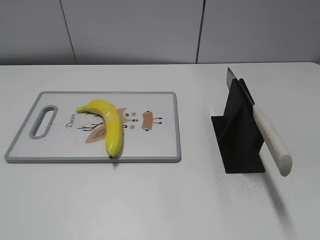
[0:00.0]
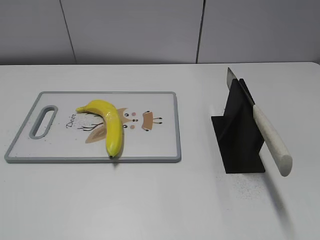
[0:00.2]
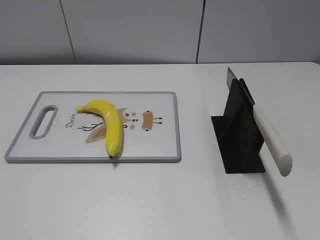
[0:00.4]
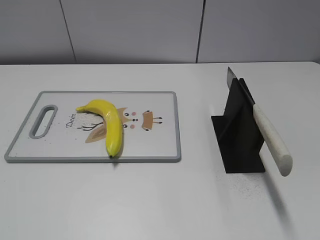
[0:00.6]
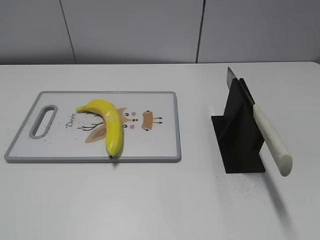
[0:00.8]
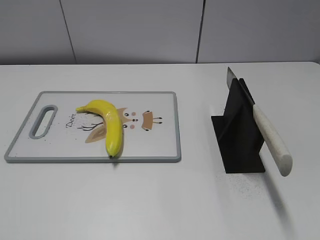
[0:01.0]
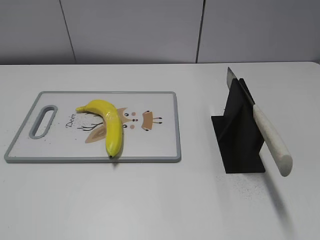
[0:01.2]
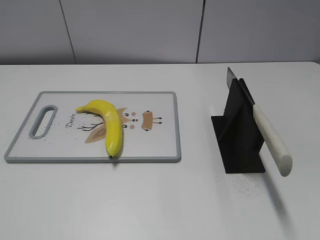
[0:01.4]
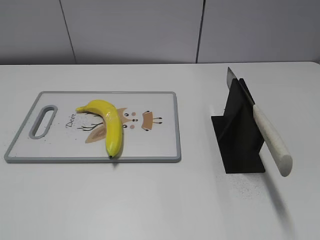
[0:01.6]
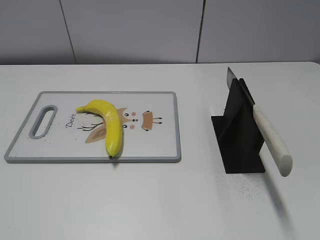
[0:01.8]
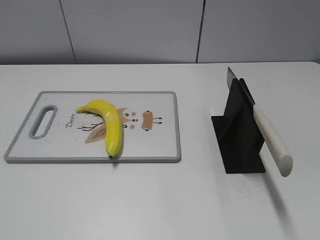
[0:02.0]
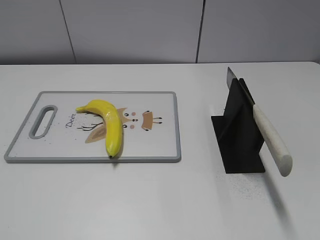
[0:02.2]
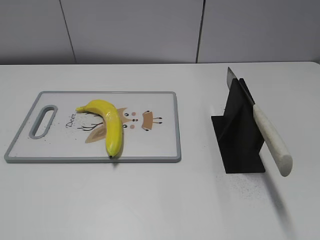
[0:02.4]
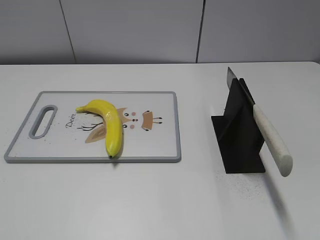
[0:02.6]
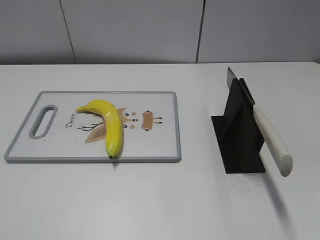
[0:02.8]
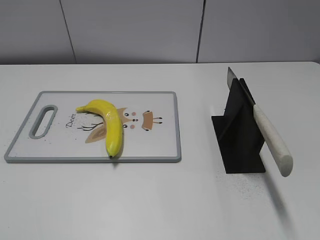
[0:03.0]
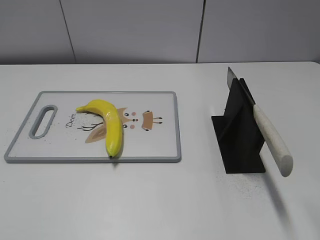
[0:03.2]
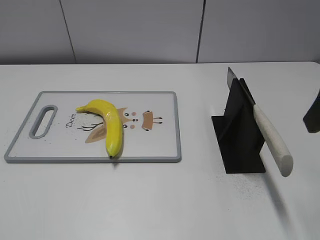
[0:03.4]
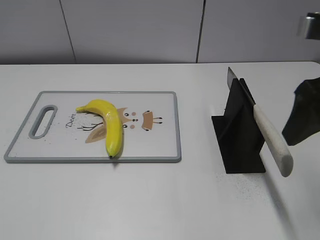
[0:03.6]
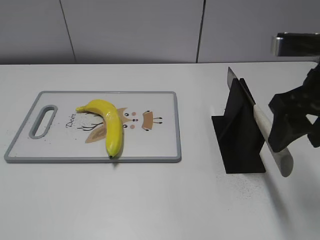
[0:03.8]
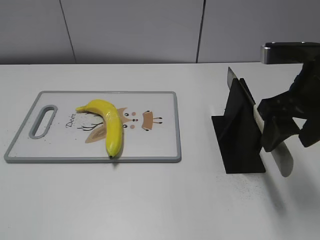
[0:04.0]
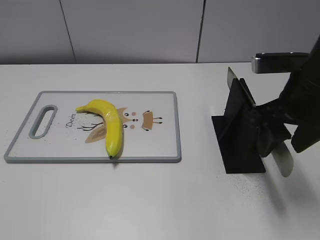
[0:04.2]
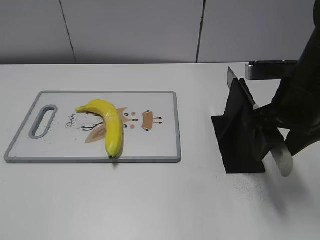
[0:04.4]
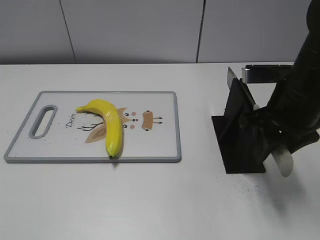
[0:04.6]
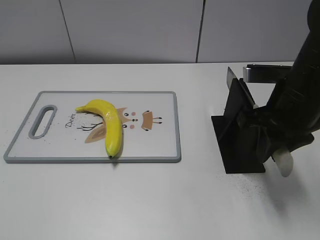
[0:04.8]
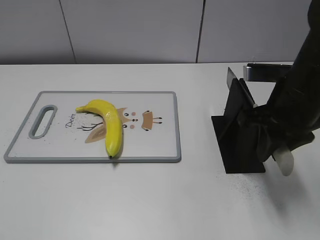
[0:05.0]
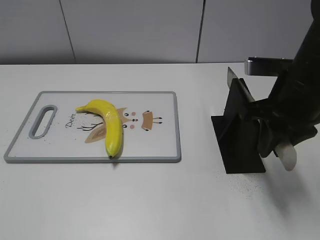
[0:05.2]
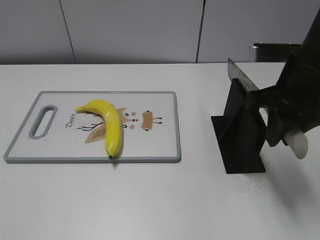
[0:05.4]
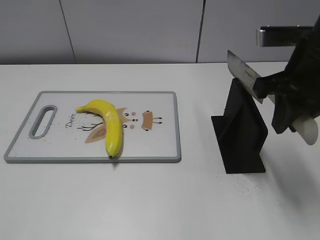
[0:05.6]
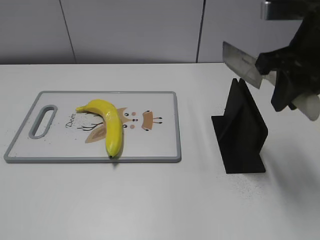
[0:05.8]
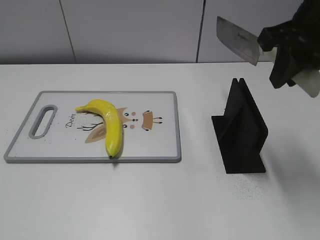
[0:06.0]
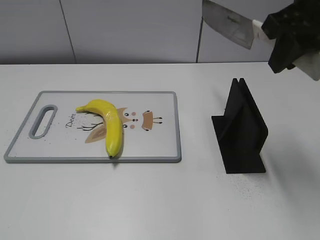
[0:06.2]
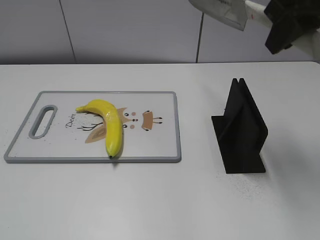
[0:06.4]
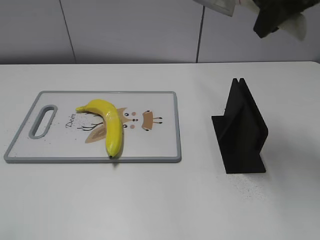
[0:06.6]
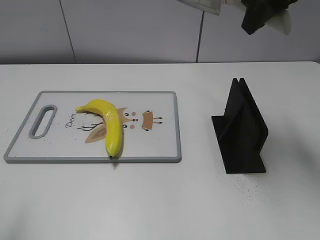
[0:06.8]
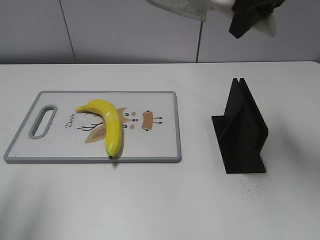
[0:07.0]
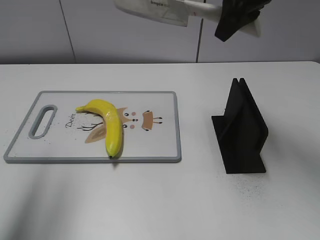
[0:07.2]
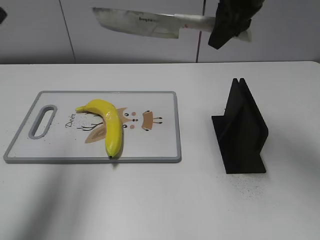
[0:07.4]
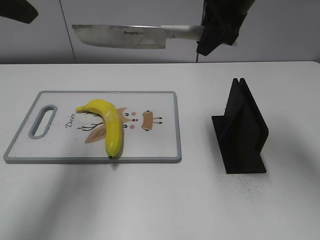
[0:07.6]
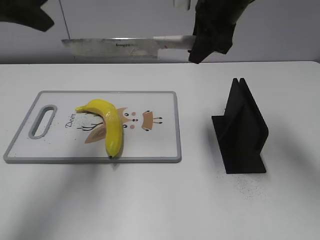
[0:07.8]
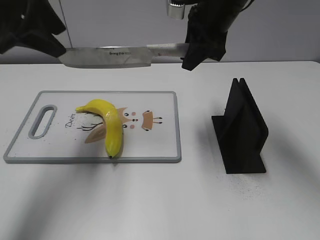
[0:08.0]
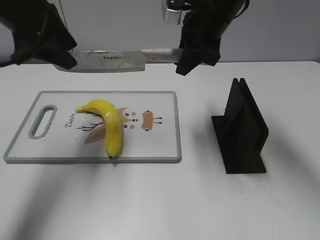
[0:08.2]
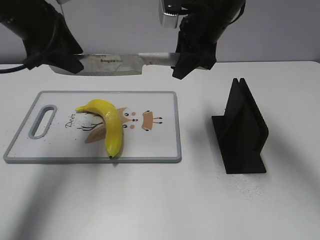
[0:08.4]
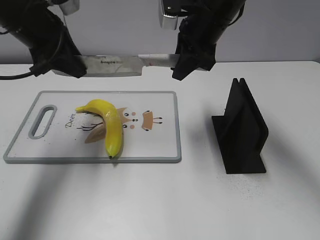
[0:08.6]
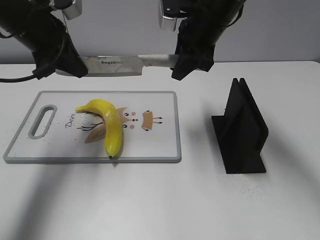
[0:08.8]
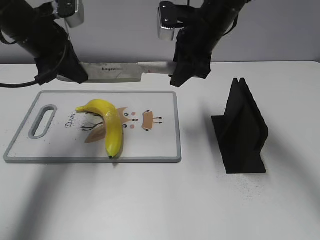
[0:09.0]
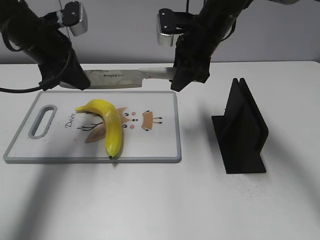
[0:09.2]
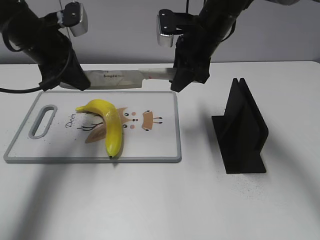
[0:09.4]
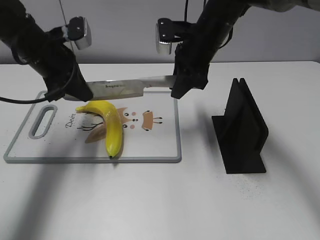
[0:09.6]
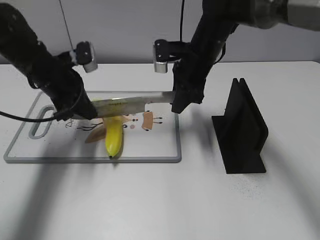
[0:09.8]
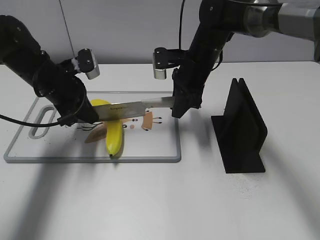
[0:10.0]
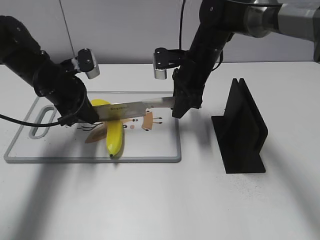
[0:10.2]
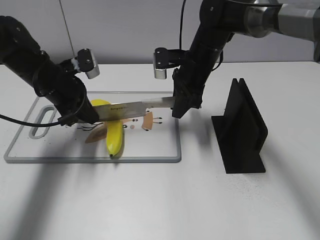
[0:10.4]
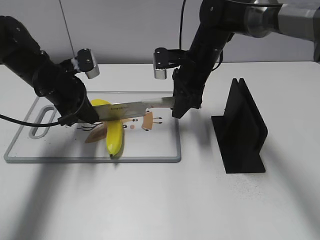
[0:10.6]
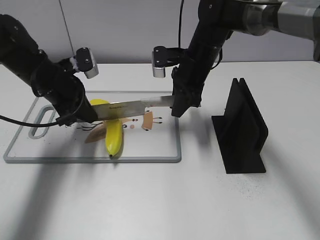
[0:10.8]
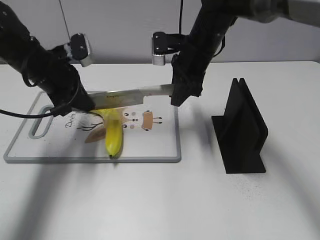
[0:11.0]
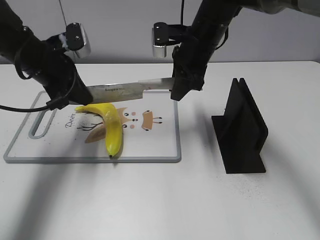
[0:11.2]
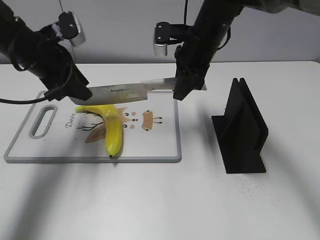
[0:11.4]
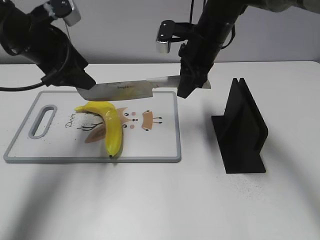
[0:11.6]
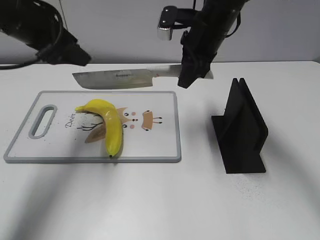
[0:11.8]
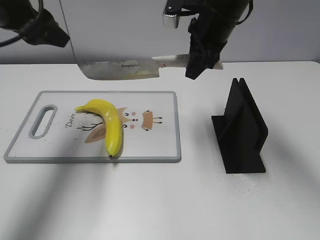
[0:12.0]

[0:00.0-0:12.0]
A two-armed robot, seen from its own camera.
Task of the whole recording: cut plastic banana.
Step, 0:00.0 to 0:05.8: Grab the knife handle with your right hand.
Step, 0:06.0 to 0:10.4: Lift the knife with your right hand.
0:03.0 to 0:04.4: The right gripper shifts about 20 cm downward, forward and to the left.
0:04.4 to 0:06.0: The right gripper travels upward by roughly 10 cm, and closes up.
0:06.0 to 0:07.6: The left gripper travels forward by about 30 cm. Meanwhile the right gripper goes about 15 cm forward and to the left.
0:07.6 to 0:09.0: The left gripper shifts some 15 cm downward and forward, and closes its fingers. The right gripper shifts approximately 10 cm downward.
0:09.0 to 0:10.4: The grippers both shift downward by some 10 cm.
0:10.4 to 0:12.0: The right gripper moves upward, roughly 10 cm, while the left gripper travels upward by about 20 cm, and opens up.

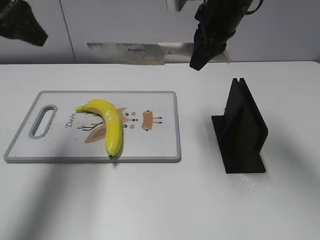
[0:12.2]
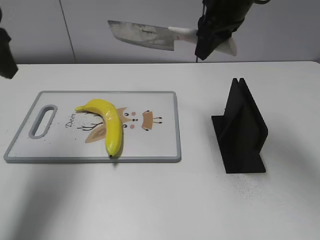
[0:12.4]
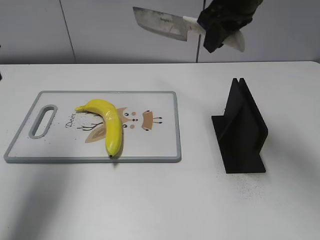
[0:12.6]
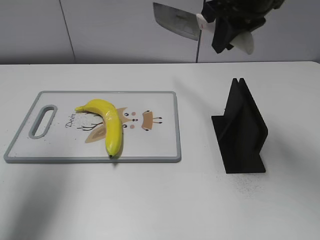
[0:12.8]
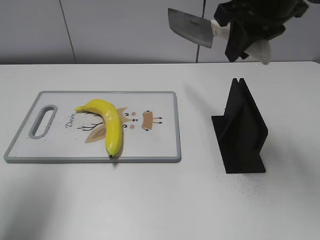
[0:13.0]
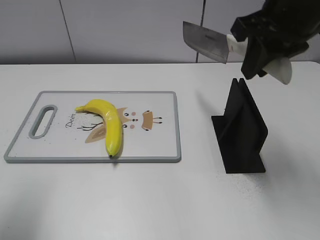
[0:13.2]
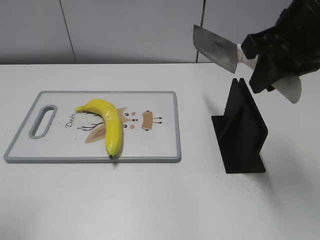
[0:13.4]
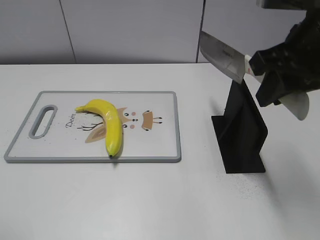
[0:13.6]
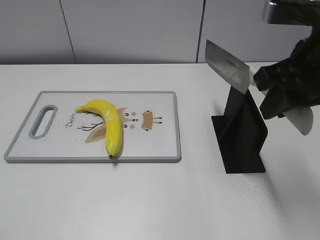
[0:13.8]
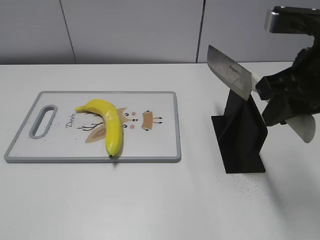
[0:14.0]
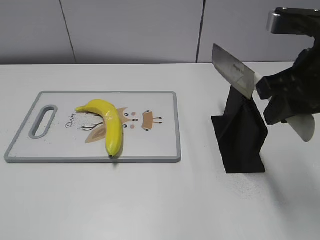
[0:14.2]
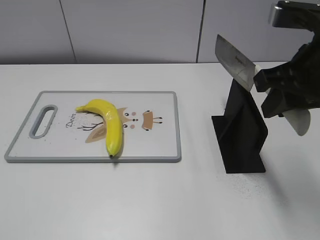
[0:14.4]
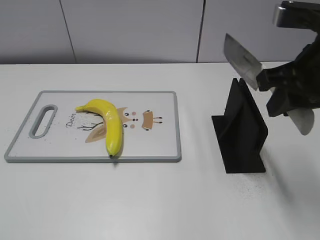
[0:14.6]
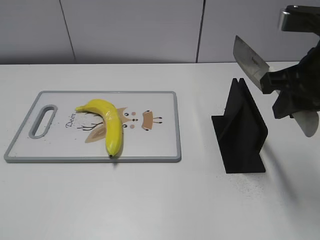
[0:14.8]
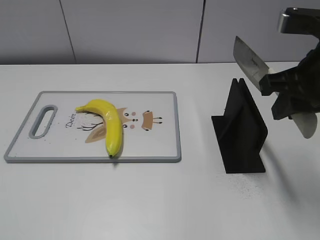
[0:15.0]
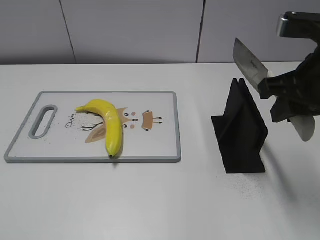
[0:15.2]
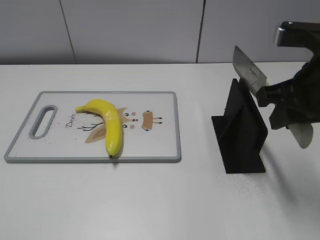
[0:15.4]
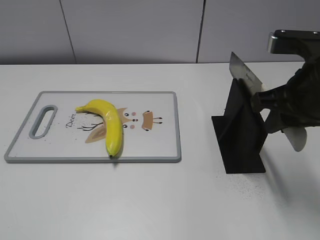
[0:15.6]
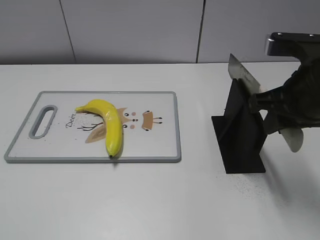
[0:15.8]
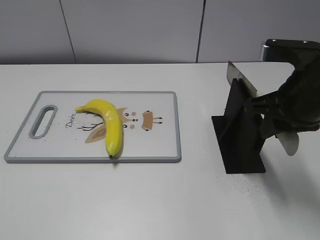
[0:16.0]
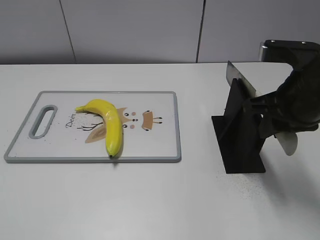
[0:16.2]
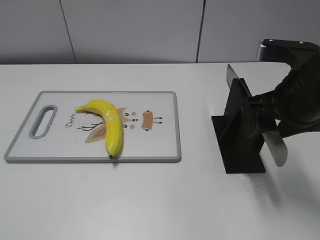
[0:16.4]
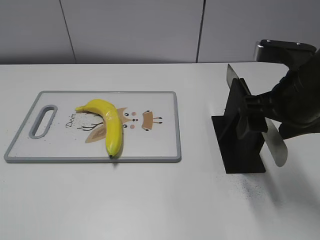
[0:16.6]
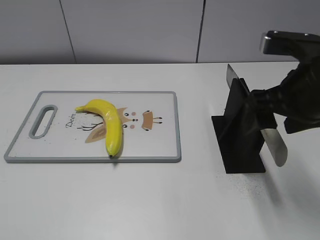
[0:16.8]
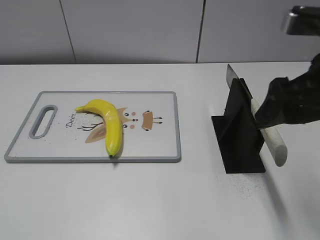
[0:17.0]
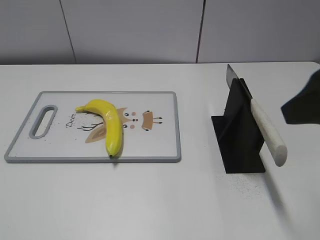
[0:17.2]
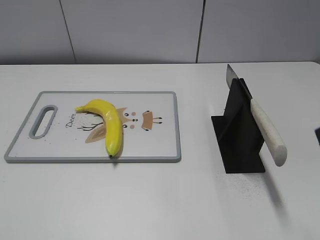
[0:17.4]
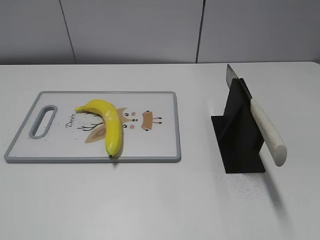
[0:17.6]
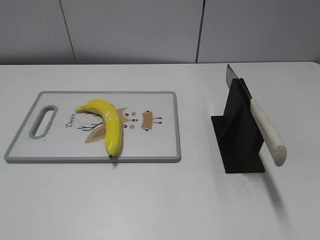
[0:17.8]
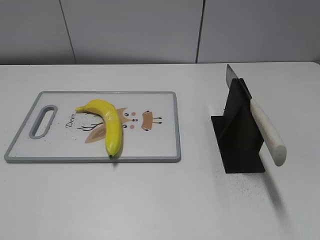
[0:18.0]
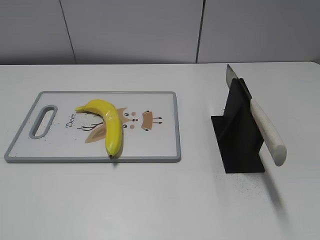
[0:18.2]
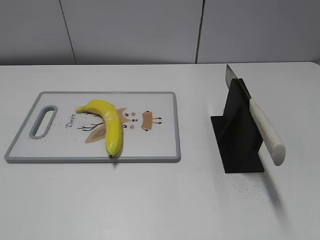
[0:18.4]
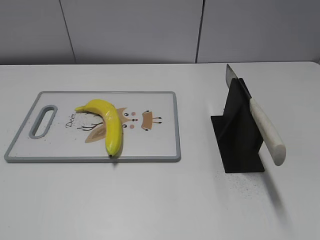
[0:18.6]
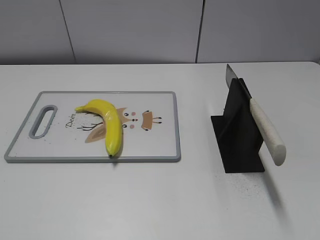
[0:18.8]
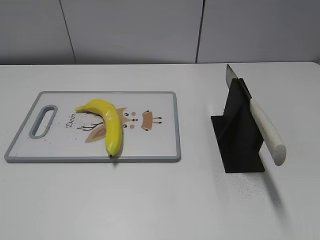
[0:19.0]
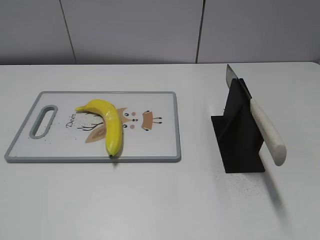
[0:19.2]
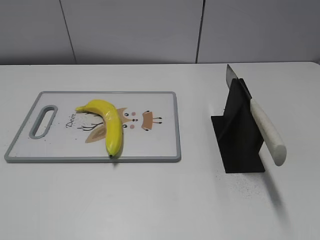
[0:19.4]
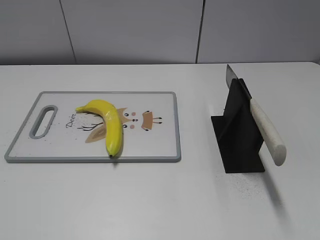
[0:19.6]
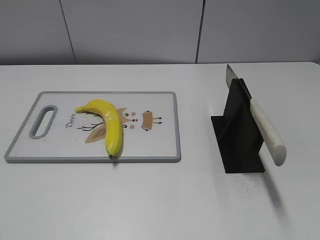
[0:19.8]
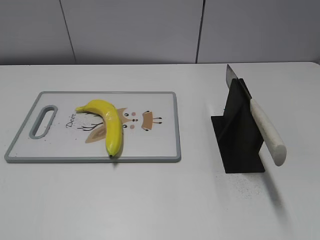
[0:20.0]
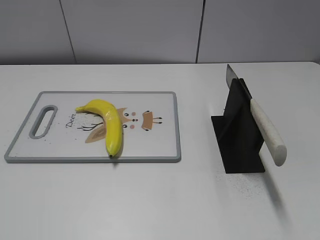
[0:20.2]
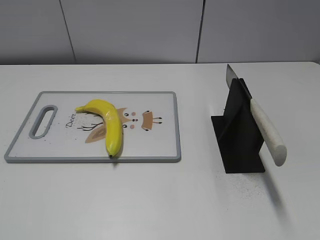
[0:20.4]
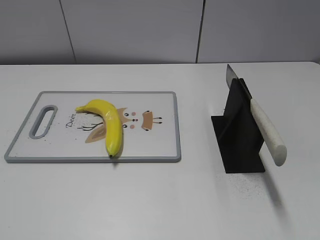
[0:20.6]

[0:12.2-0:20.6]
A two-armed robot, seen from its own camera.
Task of the whole recording: cut plastic banana.
Step, 0:13.0 to 0:14.0: Lift the knife with your right hand.
Step, 0:14.2 to 0:20.6: Place the knife on the storage rack with your right hand.
0:12.2 to 0:13.6: The right gripper shifts some 15 cm backward and to the right. Meanwhile the left gripper is displaced backward by roughly 20 cm.
0:15.0 to 0:16.4: The right gripper opens up.
0:16.4 to 0:17.8: The right gripper goes approximately 20 cm backward and to the right.
